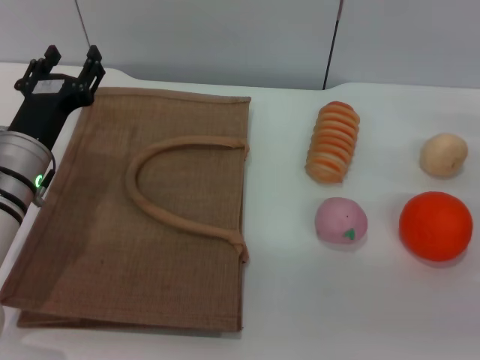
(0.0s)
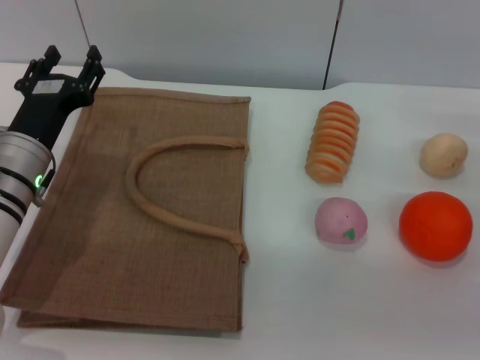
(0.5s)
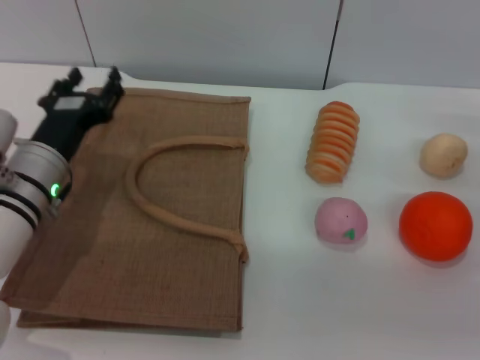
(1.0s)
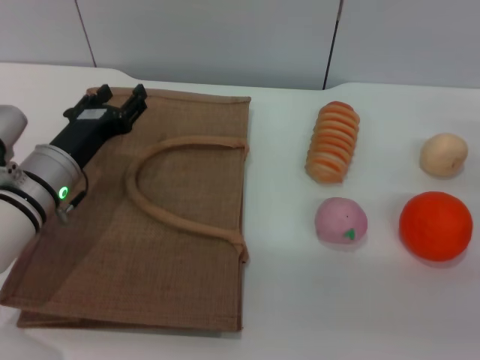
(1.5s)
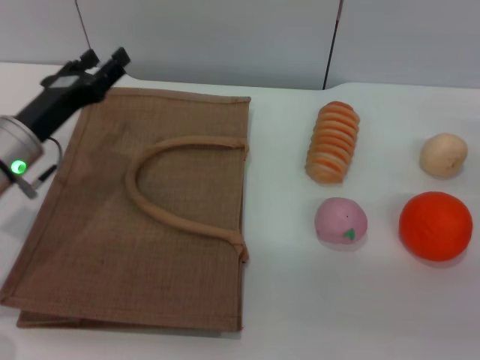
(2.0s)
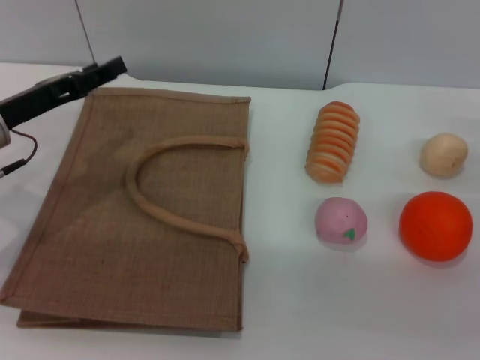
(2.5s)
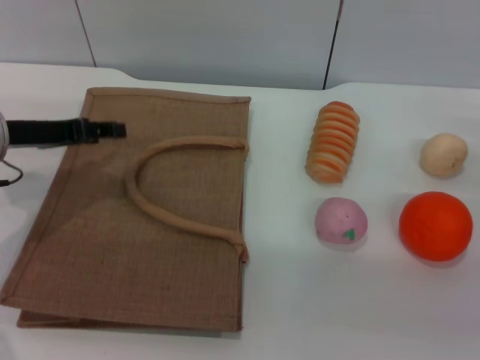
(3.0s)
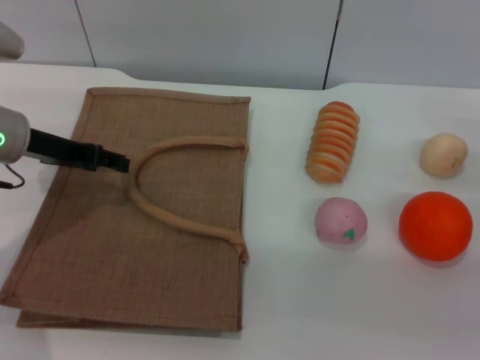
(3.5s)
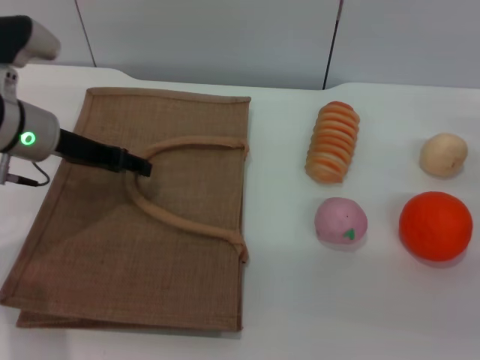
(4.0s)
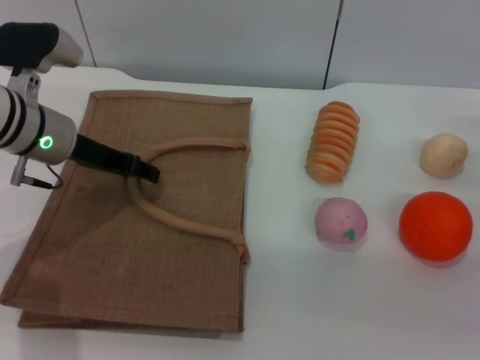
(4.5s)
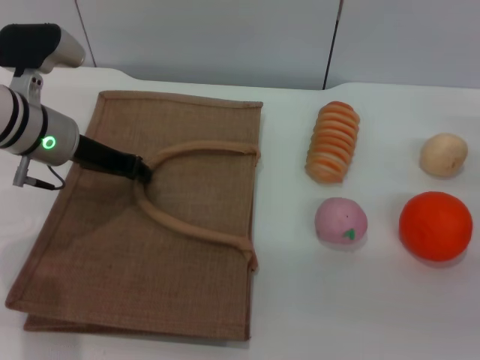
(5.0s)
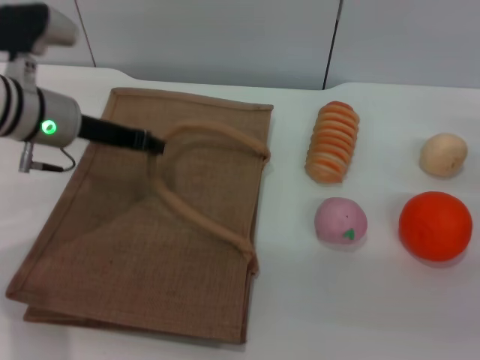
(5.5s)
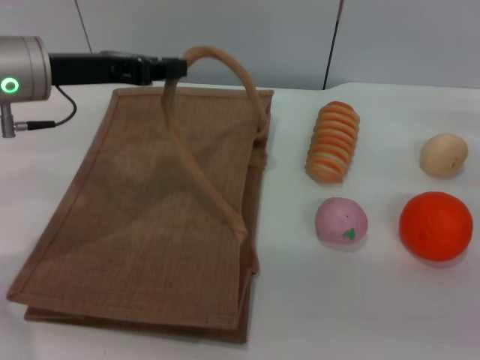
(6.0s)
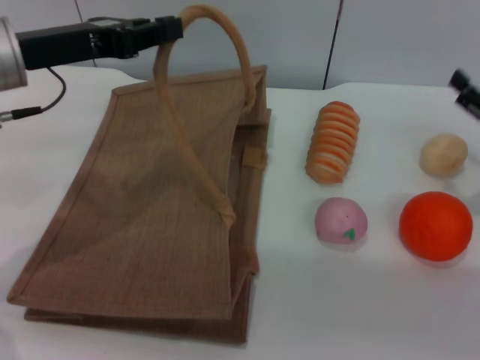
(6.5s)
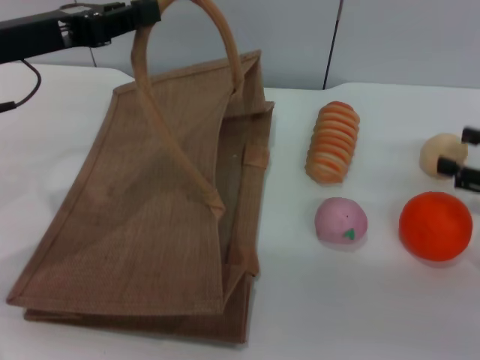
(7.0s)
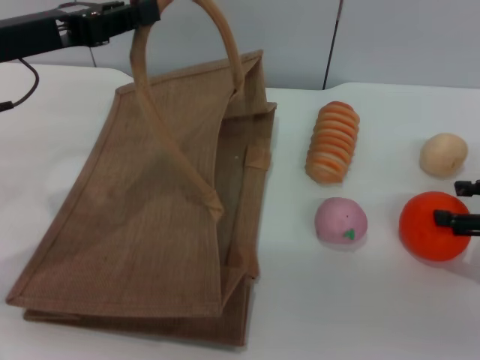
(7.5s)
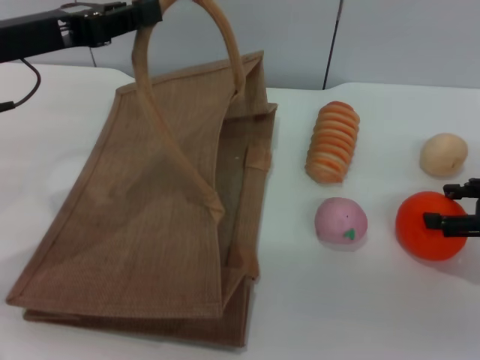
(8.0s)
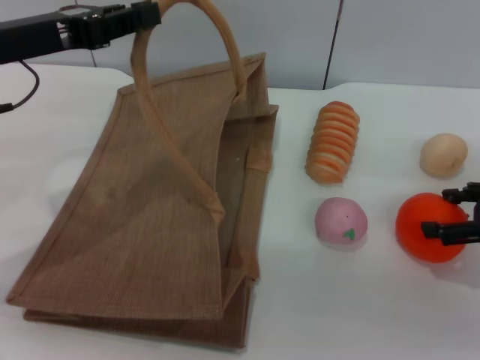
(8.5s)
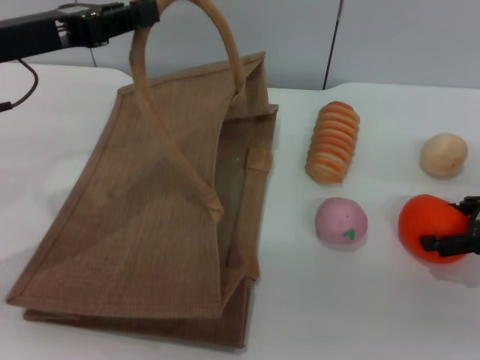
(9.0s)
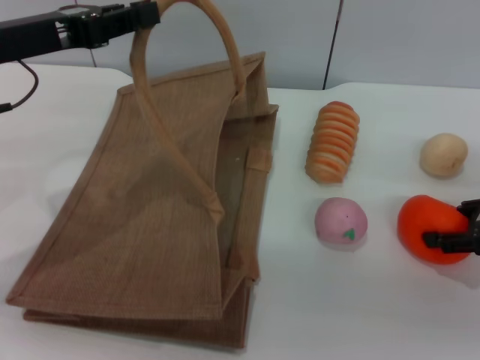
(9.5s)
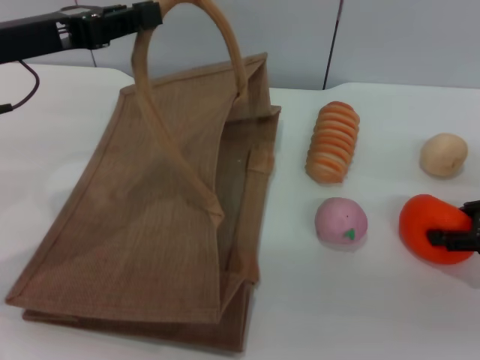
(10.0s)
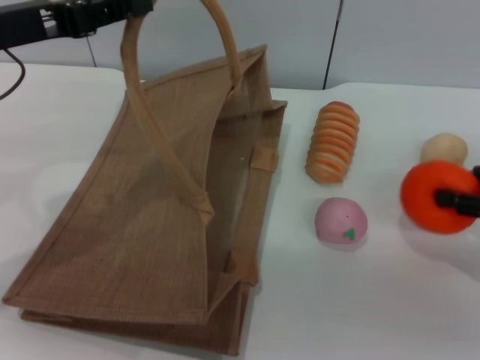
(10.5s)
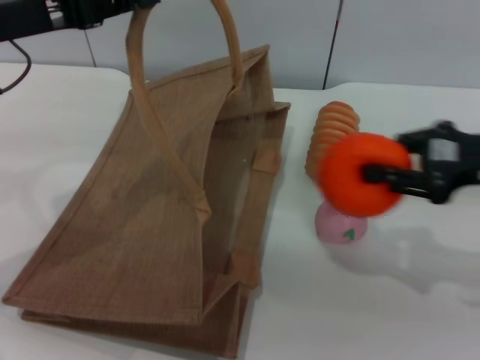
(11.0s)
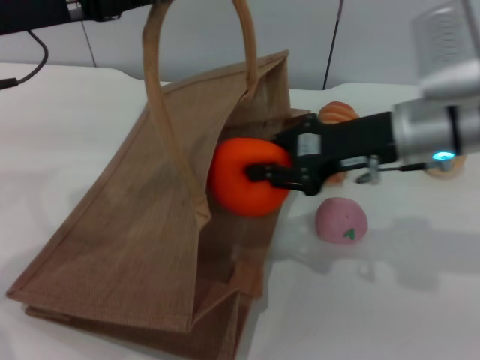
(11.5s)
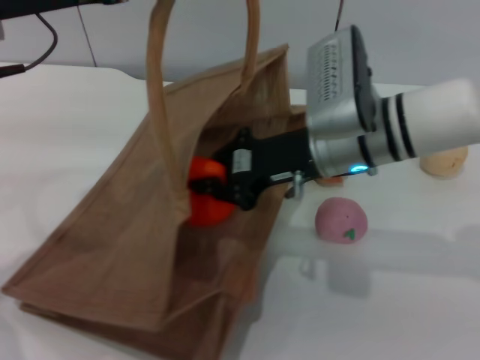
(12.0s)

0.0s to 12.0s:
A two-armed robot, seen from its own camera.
Task of the whole recording: pick up the orange from the table and place it in the brown handbag.
Step, 0.0s to 6.0s: Lift the woven bag with the left gripper to open it.
Step, 6.5s to 10.5s: Pick up the orange with the right gripper.
2.0s to 4.0s: The left gripper goes some 5 cm upward.
4.0s to 6.0s: The left gripper heads upward, covering some 5 cm, and closes up.
6.0s to 8.0s: The right gripper ends up roughly 5 cm from where it was.
8.0s to 10.0s: The right gripper closes its fingers.
10.0s to 12.0s: The right gripper is displaced to the left by roughly 25 cm, and closes.

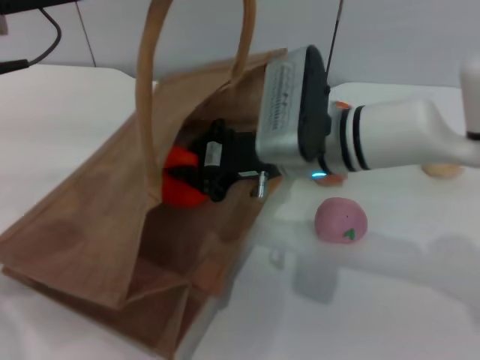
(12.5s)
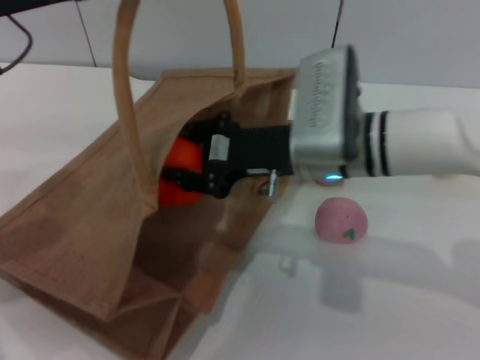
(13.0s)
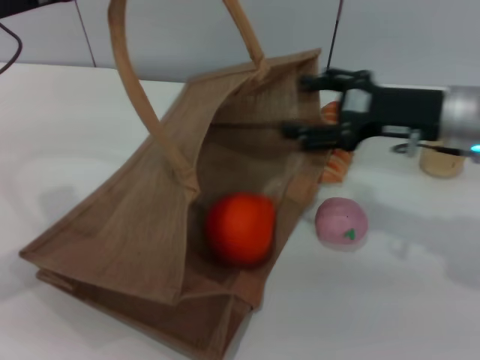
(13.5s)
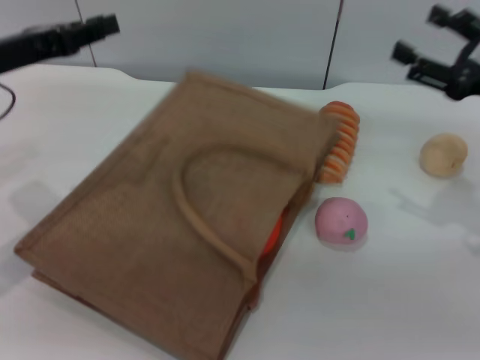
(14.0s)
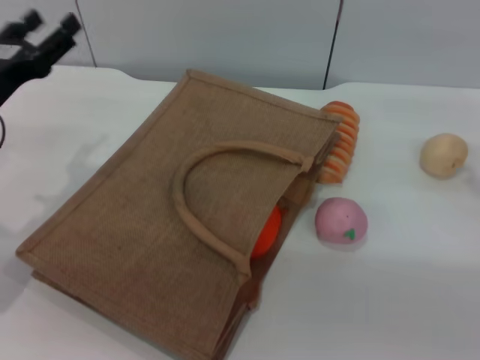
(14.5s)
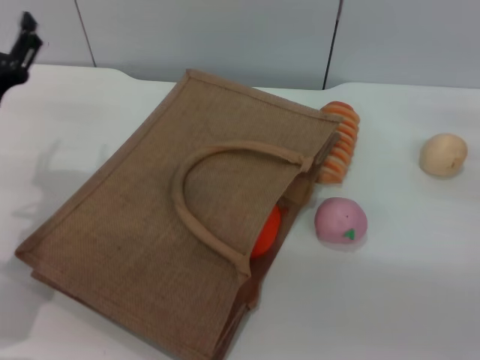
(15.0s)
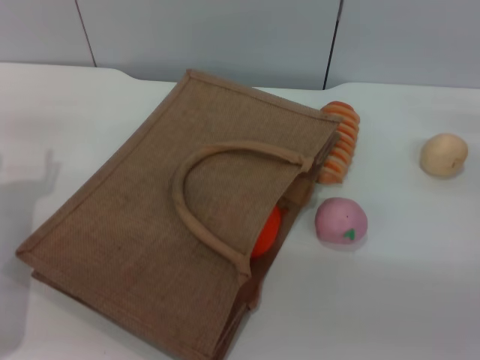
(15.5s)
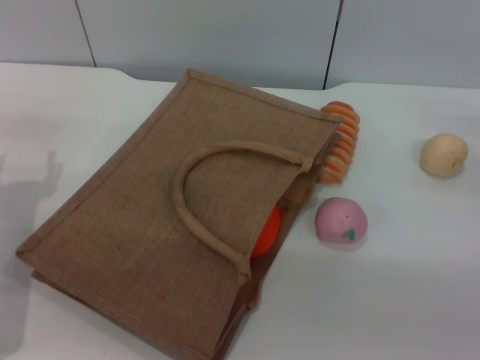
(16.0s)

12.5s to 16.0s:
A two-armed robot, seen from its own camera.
Task of the whole recording: pick up the orange from the table and place it in the brown handbag.
12.5s to 14.5s: The right gripper moves to the right, roughly 25 cm, and opens its fingers, while the left gripper shifts roughly 15 cm downward and to the left, and opens.
14.5s to 16.0s: The left gripper changes place by roughly 5 cm.
